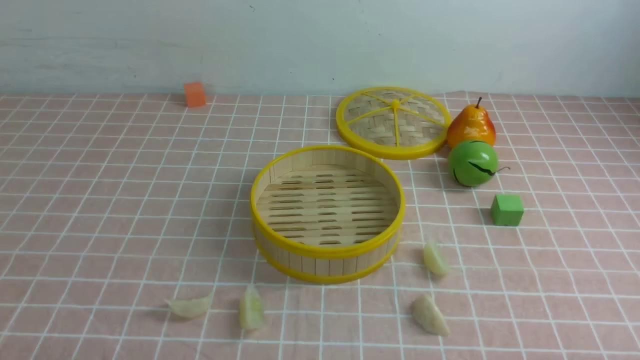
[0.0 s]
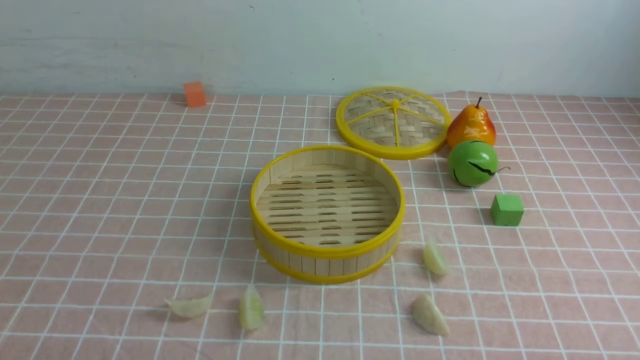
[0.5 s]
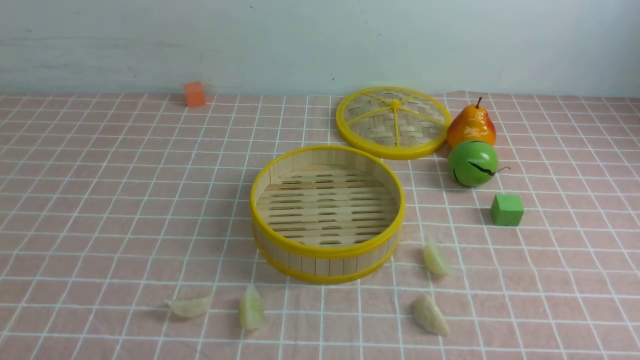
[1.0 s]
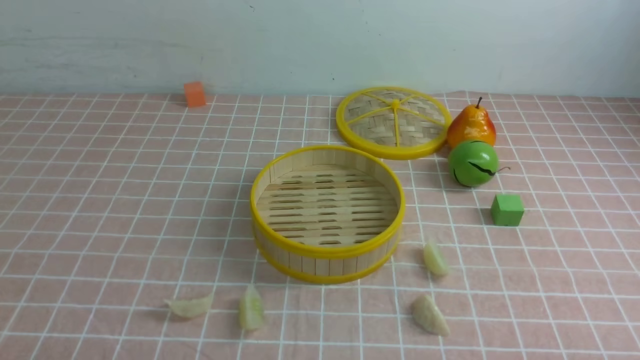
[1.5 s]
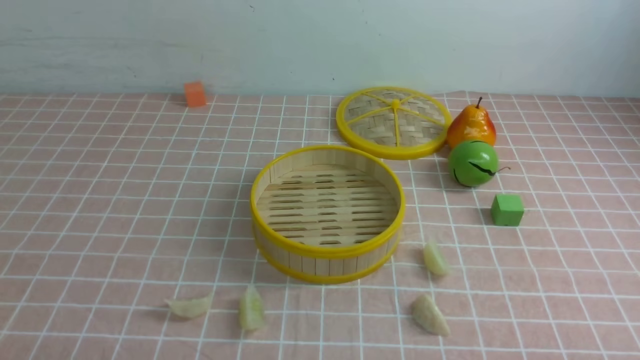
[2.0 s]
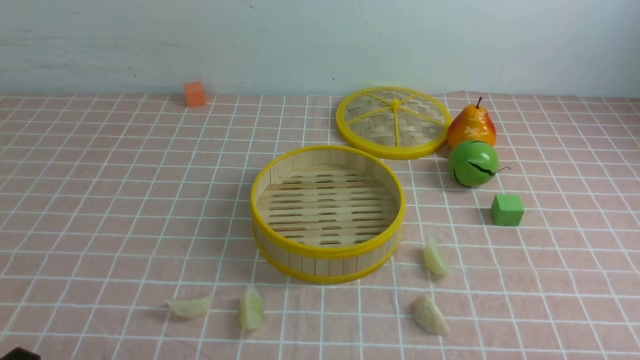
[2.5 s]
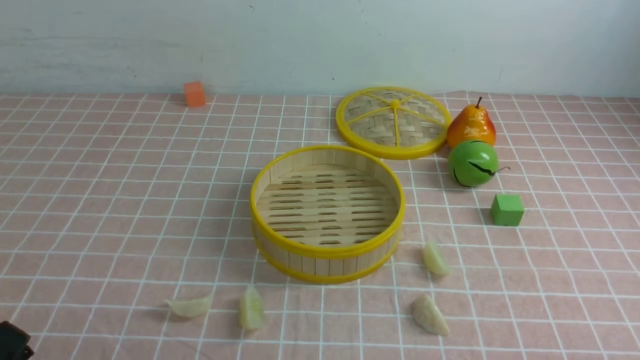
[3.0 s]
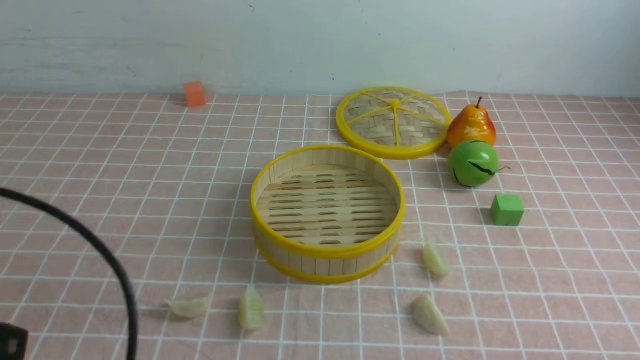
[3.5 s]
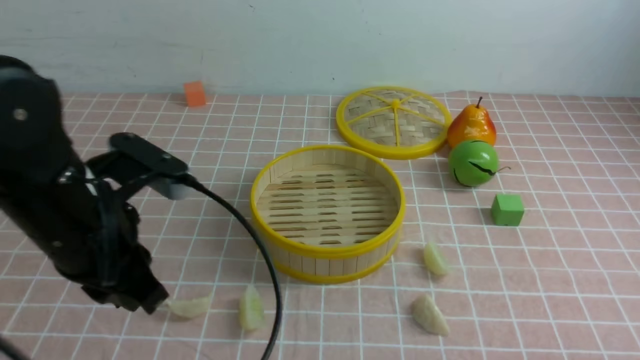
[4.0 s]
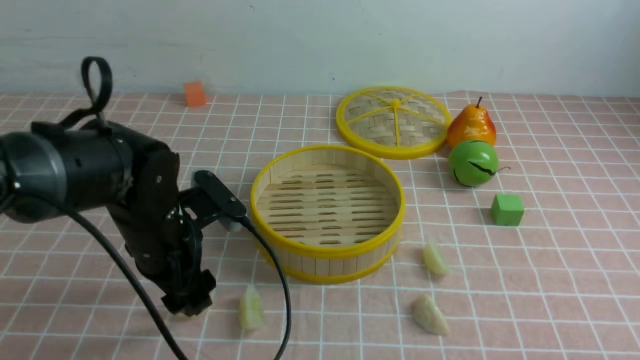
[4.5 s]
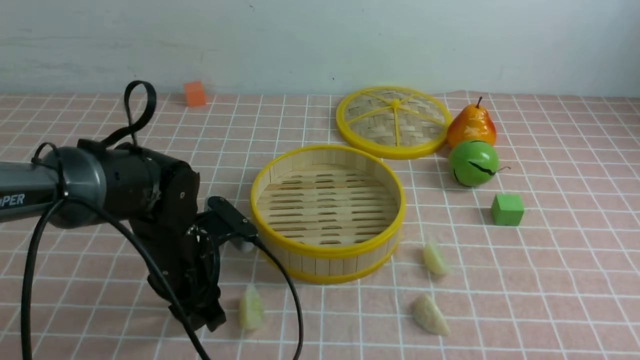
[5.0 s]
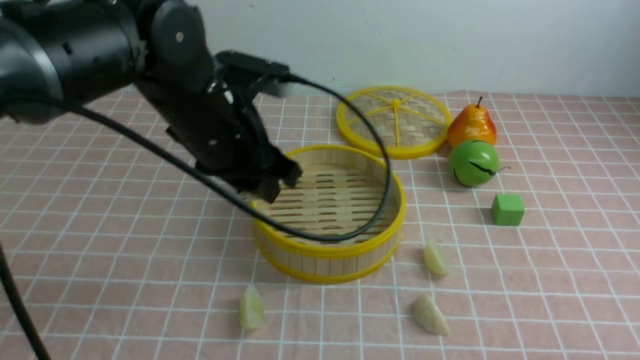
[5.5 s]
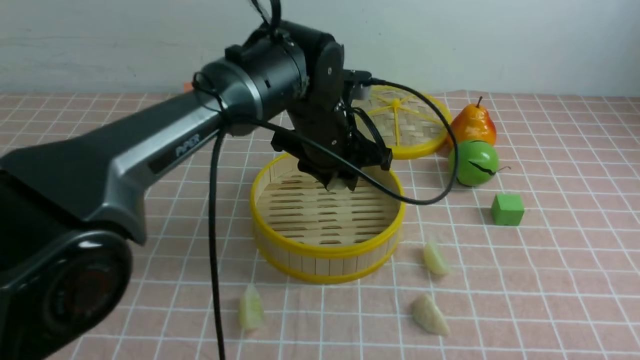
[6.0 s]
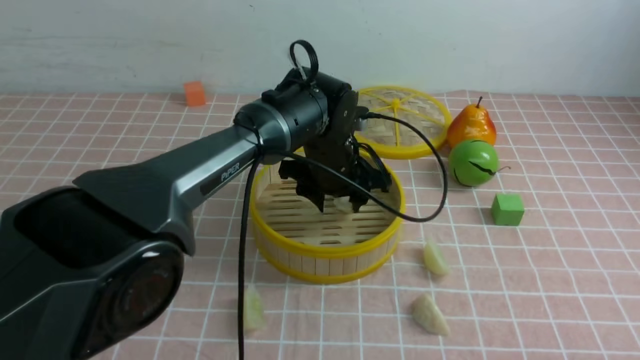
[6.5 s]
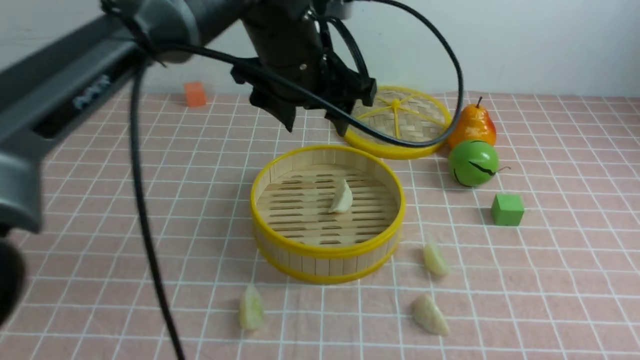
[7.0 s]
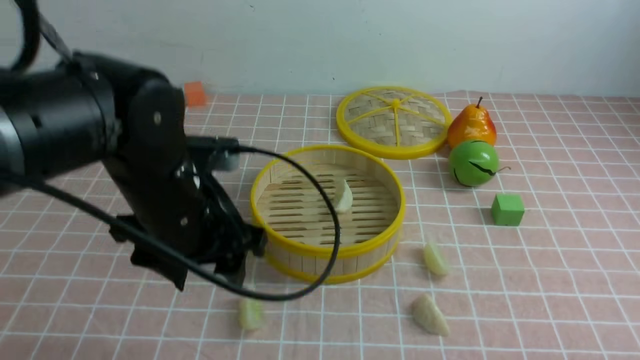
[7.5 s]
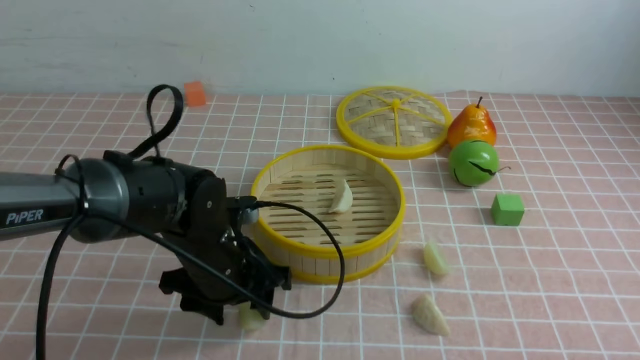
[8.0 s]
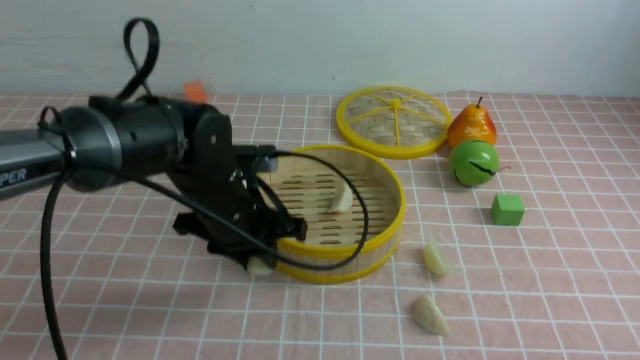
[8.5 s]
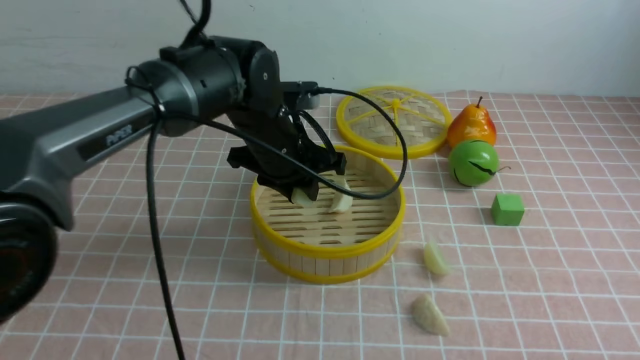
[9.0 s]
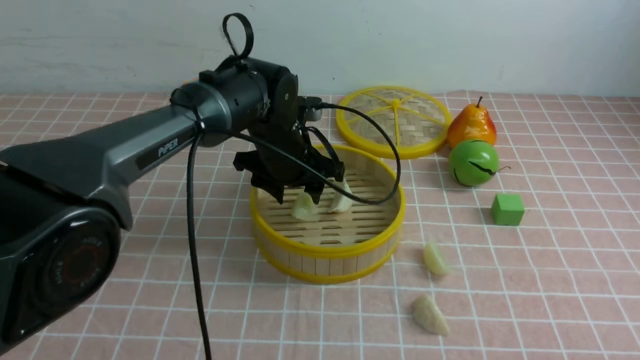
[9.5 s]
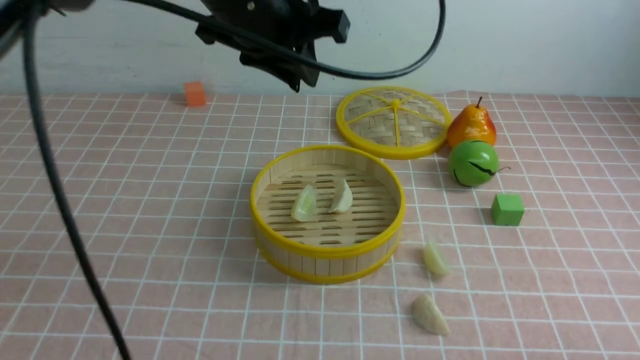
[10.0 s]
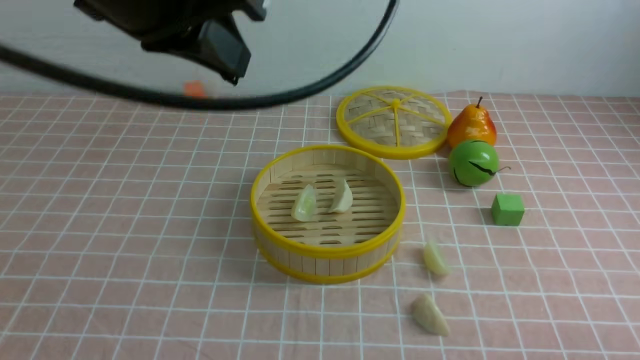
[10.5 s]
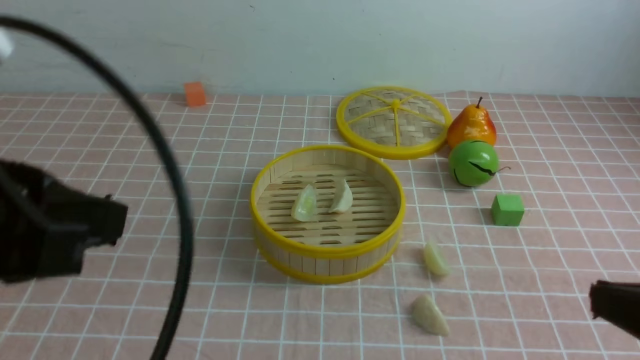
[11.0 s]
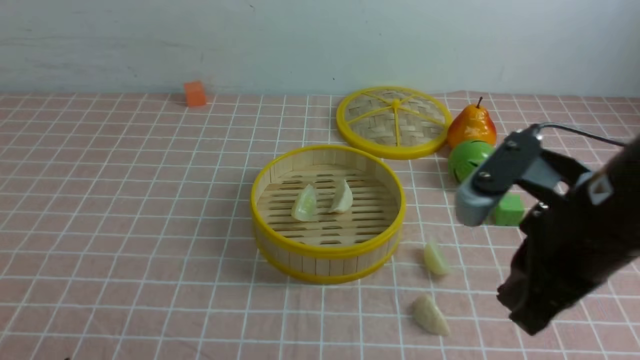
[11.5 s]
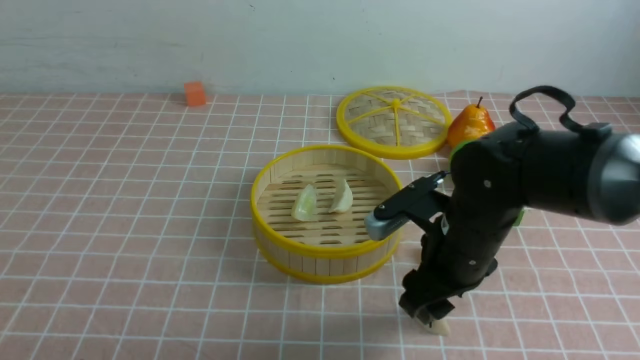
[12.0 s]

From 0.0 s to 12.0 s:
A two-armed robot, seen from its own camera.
Task of the whole recording: put the dumplings into the steamer on the table with the pink tablecloth.
Step, from 0.0 s to 5.0 s: use the left arm to grab a dumpling.
Step, from 5.5 s to 6.5 s: use the left arm to put the dumpling into the steamer.
Step, from 7.0 s to 8.0 s: use the left arm to grab a dumpling.
Step, from 8.5 s to 9.0 s: use the left arm to put the dumpling into the steamer.
From 2.0 s to 4.0 s: The left gripper heads forward, upward and to the right, covering some 25 cm.
From 4.0 s to 6.0 s: The left gripper travels to the right and forward by some 25 cm, and opens, then closes again.
From 6.0 s to 8.0 s: The left gripper goes up and down, approximately 15 cm each way, reversing 2 times, and opens.
From 8.0 s to 10.0 s: The left gripper swings up and down, some 20 cm each way, with 2 reversals, and closes up.
From 10.0 s to 12.0 s: The right gripper shifts about 30 cm forward and to the left, and closes, then reopens. Meanwhile the left gripper heads backward and to the left, covering about 35 cm, and closes up.

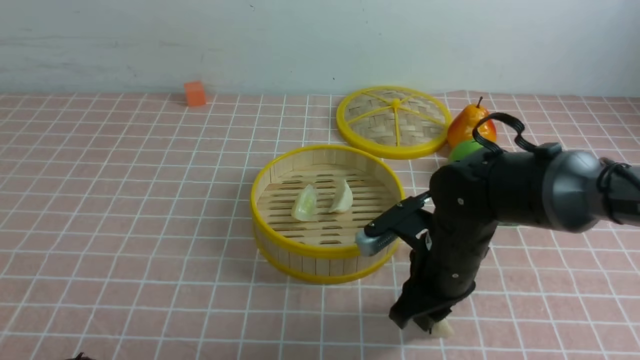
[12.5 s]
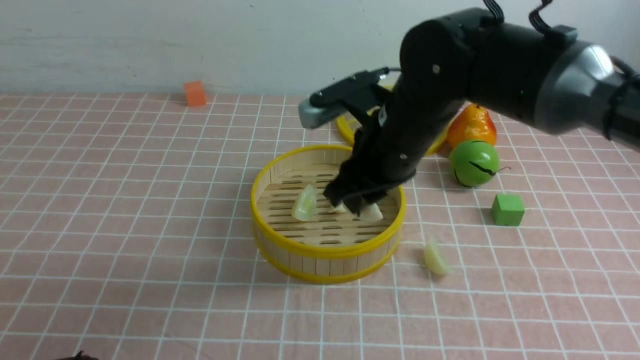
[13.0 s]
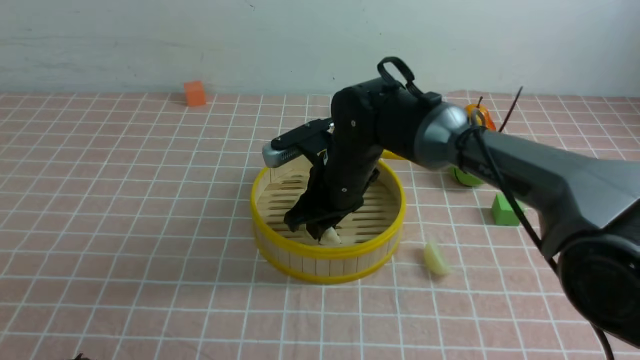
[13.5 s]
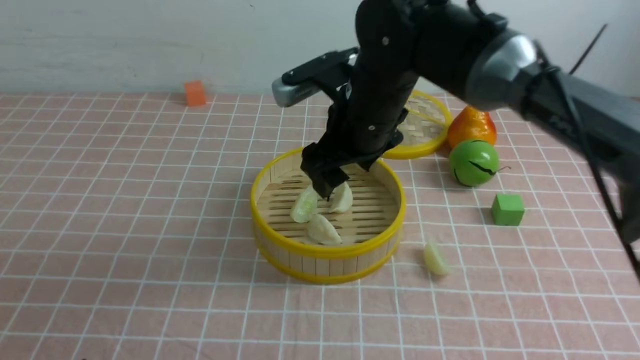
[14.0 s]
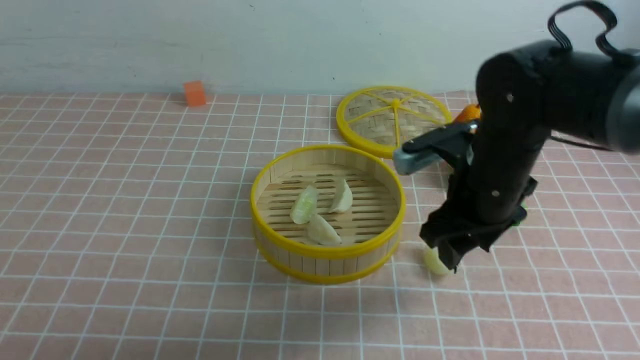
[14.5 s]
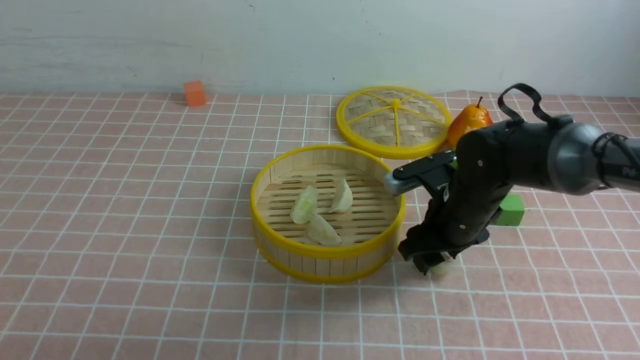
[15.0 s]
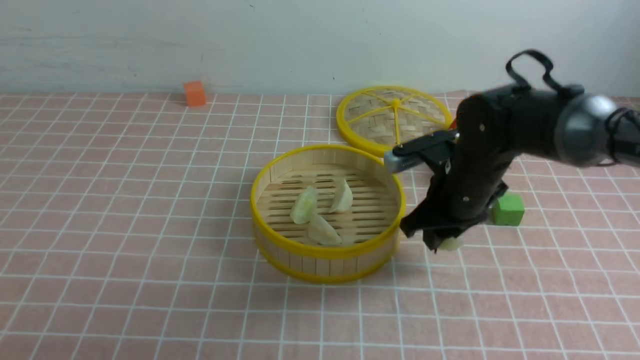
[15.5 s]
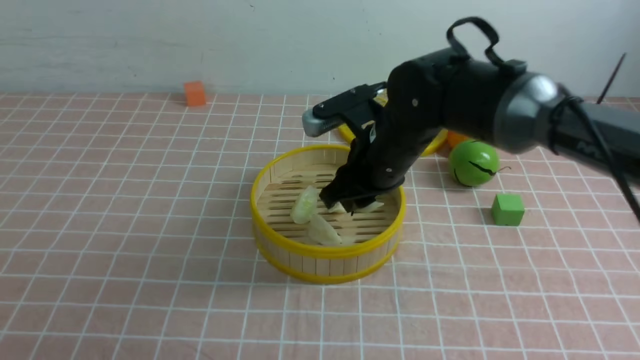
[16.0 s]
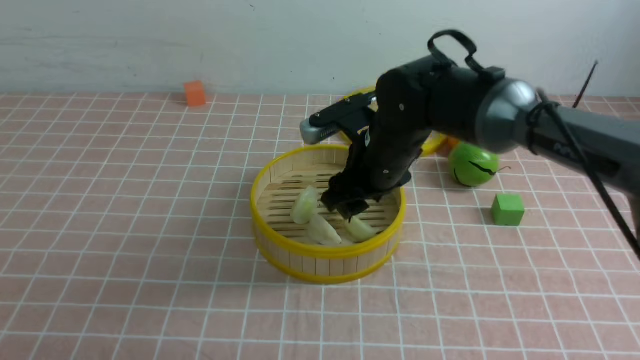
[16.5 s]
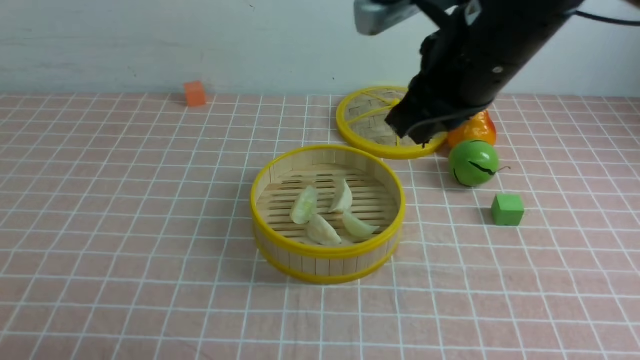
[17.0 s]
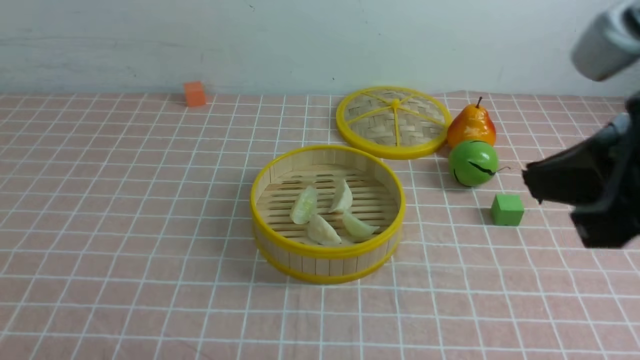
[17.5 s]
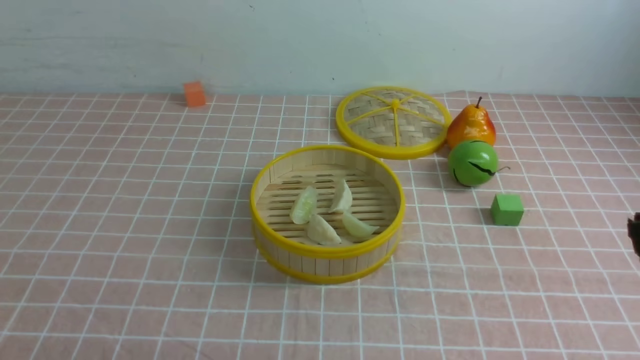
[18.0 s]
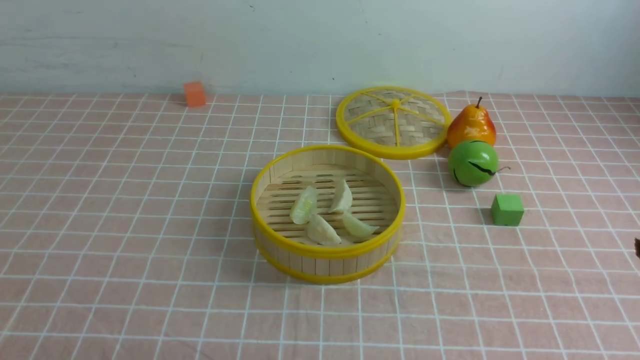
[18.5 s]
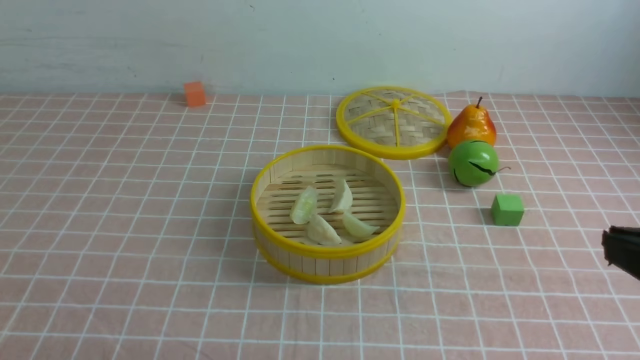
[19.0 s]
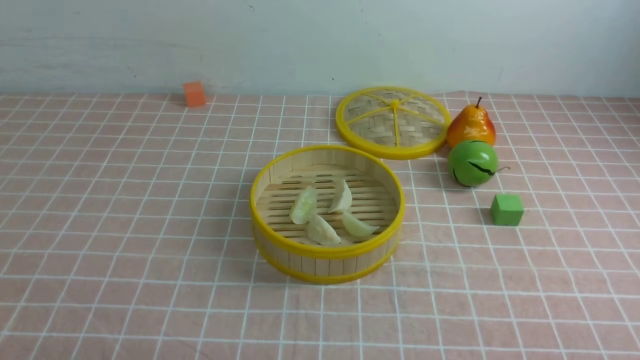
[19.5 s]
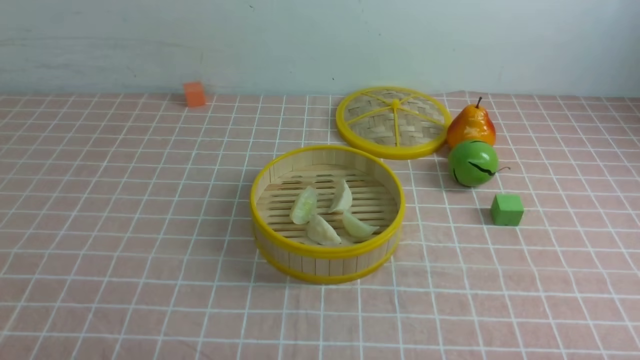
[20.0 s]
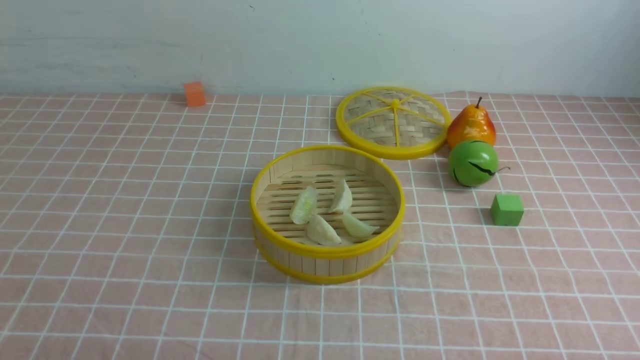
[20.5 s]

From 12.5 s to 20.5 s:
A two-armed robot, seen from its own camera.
Task of the whole recording: put the dumplings into the steamer on the table with the pink tablecloth.
Step, from 12.5 s to 13.5 s: use the right arm to put the dumpling into the steamer.
Step, from 14.0 s to 15.0 s: use the right arm to grab a dumpling.
Step, from 15.5 s to 16.0 s: use the right arm to put the dumpling into the steamer.
From 12.5 s to 14.5 s: The right gripper is displaced upward by some 10 cm.
From 14.5 s to 16.5 s: The right gripper goes some 10 cm to the left and forward.
From 16.5 s to 18.5 s: The right gripper goes approximately 40 cm backward, to the right and upward, and closes up.
